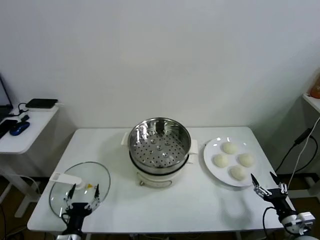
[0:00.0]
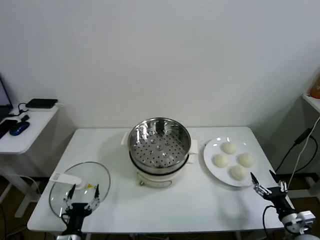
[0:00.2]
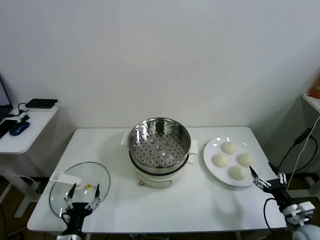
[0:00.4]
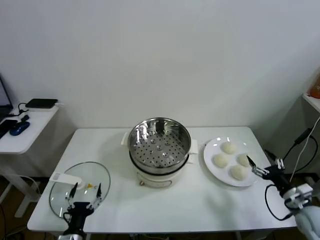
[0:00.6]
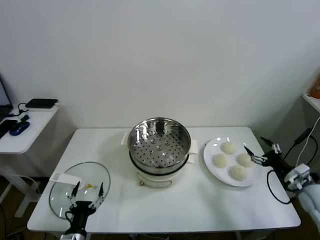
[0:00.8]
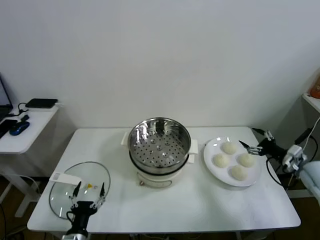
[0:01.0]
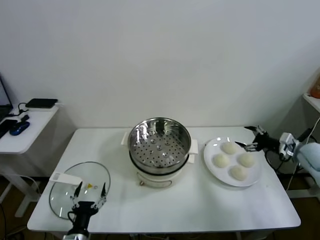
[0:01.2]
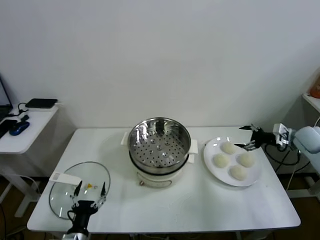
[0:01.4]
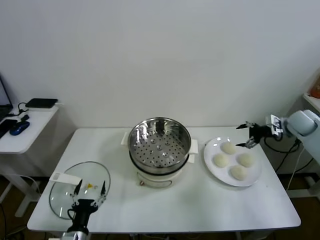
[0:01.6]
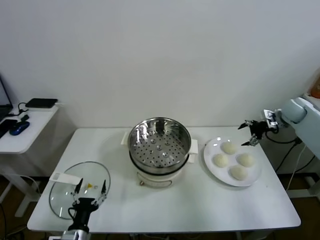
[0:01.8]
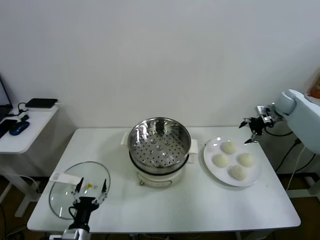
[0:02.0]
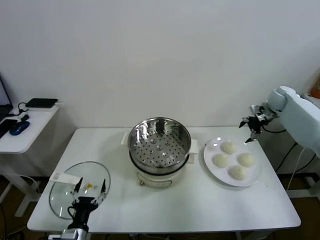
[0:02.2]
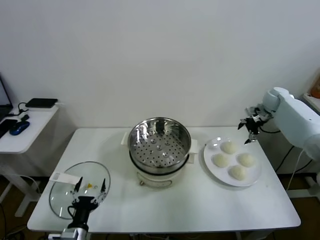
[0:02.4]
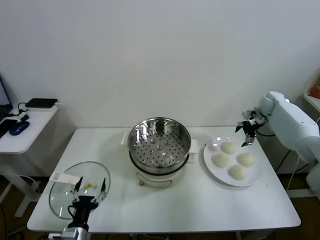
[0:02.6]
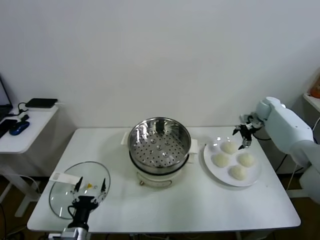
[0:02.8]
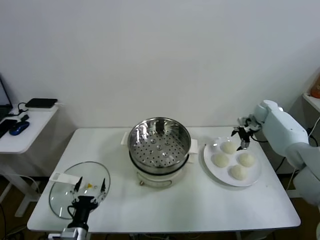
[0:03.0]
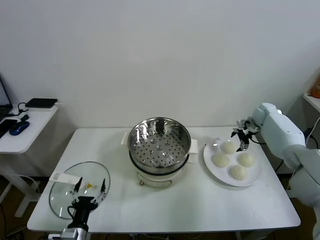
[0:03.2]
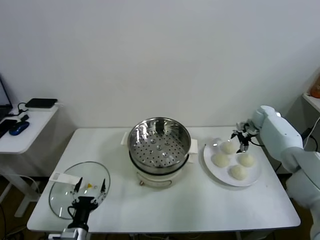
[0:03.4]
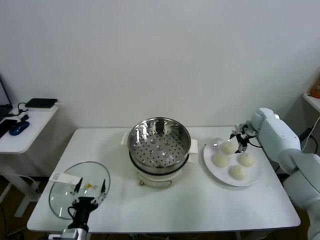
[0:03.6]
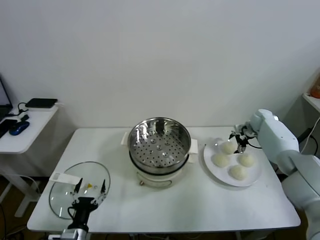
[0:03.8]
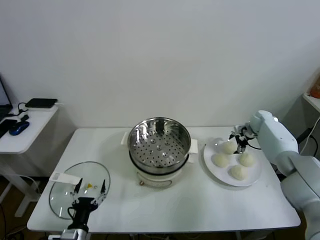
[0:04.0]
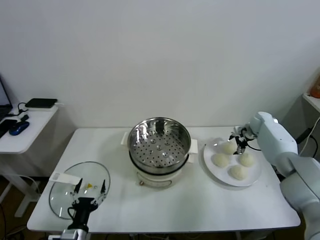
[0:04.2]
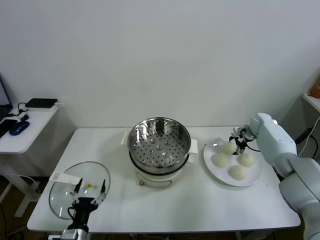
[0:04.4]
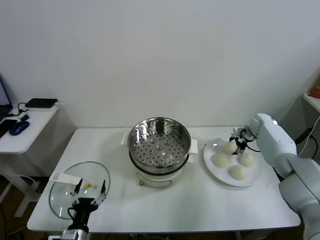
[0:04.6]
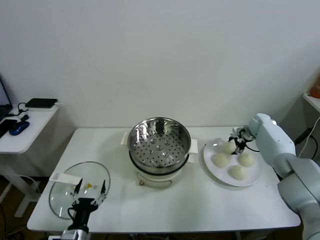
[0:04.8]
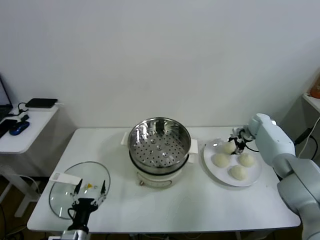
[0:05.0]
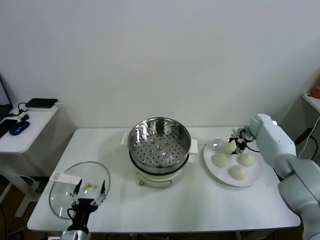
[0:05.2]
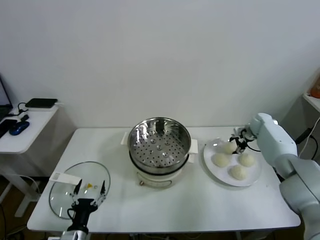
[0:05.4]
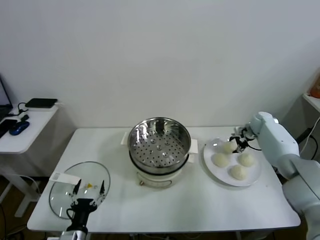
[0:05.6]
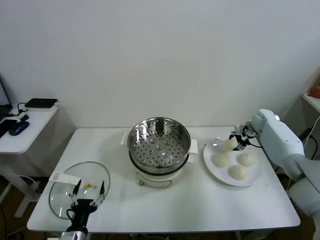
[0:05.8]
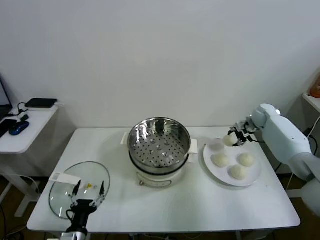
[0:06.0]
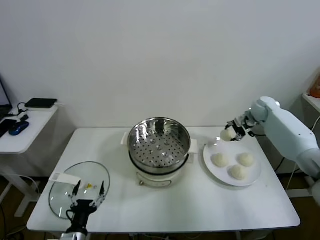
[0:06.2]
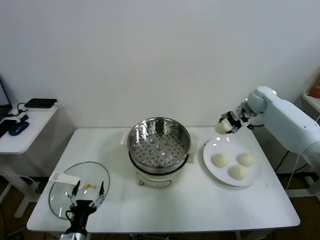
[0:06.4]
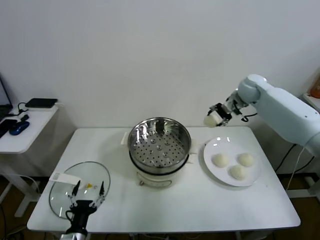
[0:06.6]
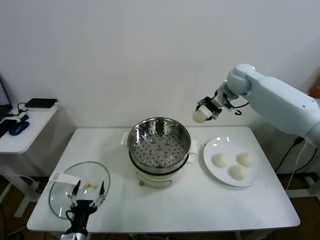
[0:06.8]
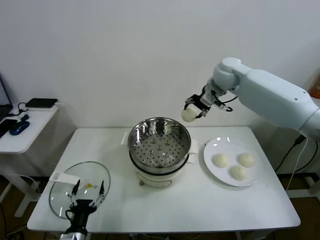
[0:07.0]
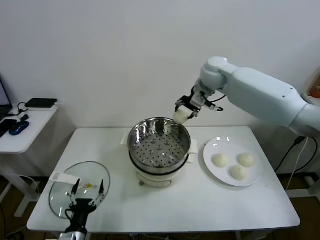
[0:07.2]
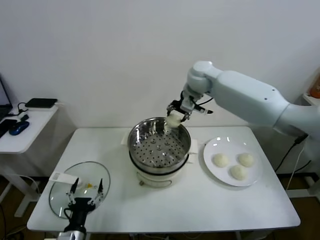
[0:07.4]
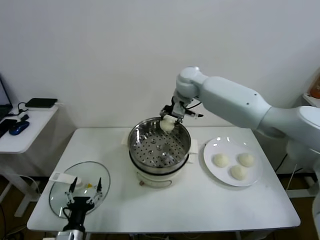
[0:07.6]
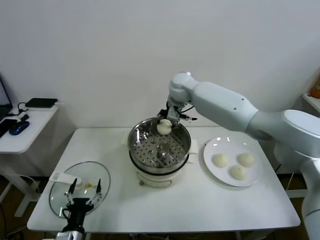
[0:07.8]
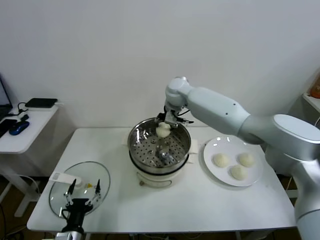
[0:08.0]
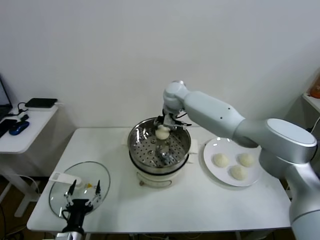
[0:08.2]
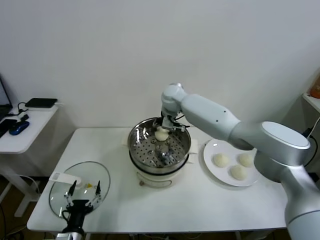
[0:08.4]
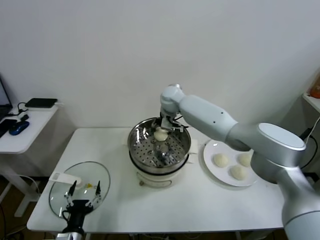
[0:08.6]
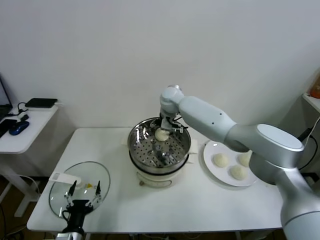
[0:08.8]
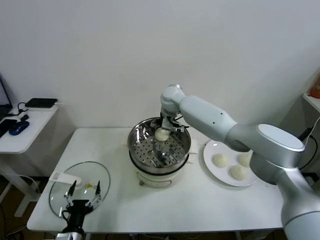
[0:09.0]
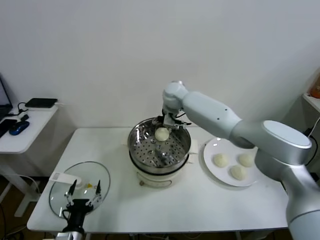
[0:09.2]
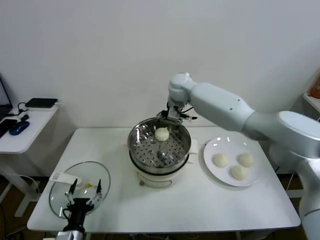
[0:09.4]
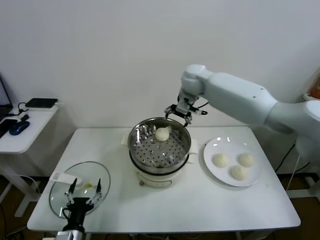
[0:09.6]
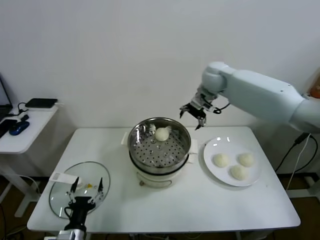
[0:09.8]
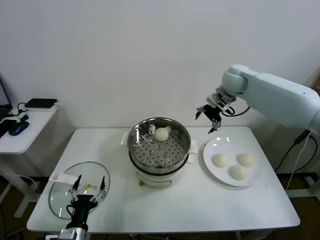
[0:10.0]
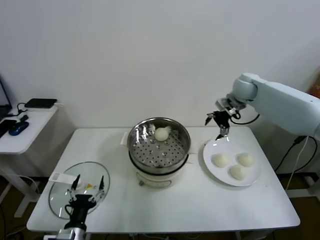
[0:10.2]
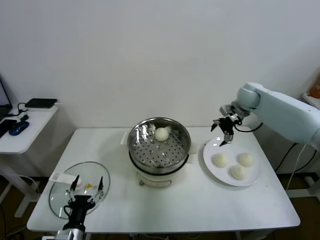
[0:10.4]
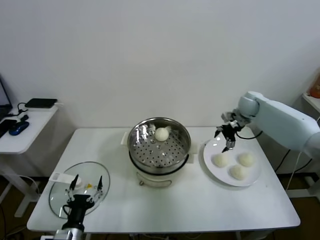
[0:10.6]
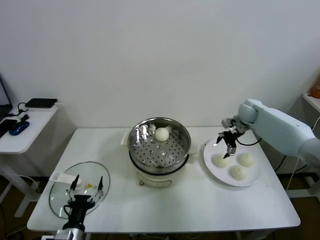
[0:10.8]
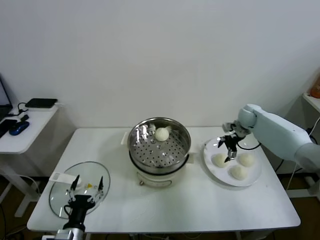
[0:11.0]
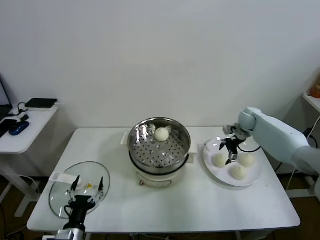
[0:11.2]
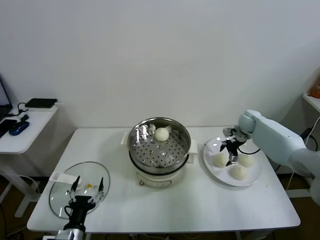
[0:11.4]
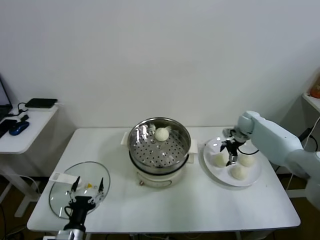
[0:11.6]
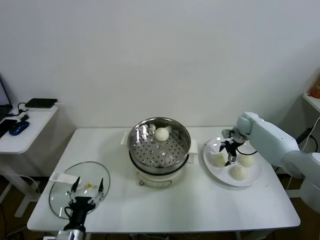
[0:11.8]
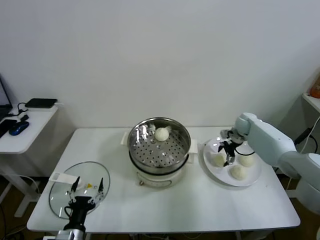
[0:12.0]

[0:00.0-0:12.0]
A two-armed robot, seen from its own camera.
Task of the whole recording: take steamed baozi put them in steamer.
Step, 0:00.0 to 0:05.2: Grasp the baozi in the plate with right gripper.
Step, 0:05.4 to 0:08.8: Place the baozi on the steamer with right gripper.
0:01.6 to 0:03.0: The right gripper moves forward, downward and to the left, approximately 10 cm.
0:03.0 to 0:04.4: The right gripper heads downward, covering roughly 5 cm, and closes up.
0:04.4 to 0:06.0: The right gripper moves upward, roughly 5 cm, and closes up.
0:06.0 to 0:07.6: The right gripper is displaced to the left and upward by roughly 35 cm.
0:07.6 to 0:09.0: The right gripper moves downward, roughly 5 cm, and opens.
0:09.0 to 0:10.4: The right gripper heads to the right, covering roughly 30 cm.
0:10.4 to 0:12.0: The right gripper heads downward, covering approximately 15 cm.

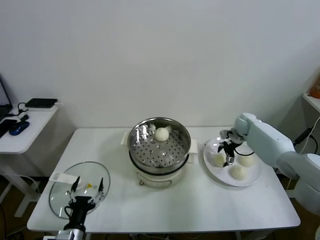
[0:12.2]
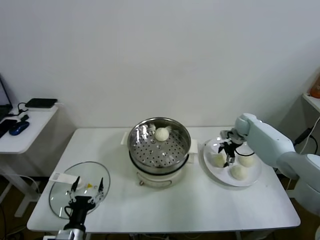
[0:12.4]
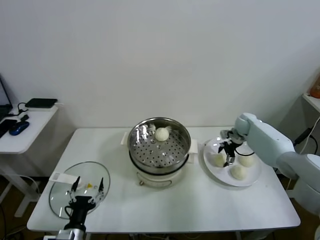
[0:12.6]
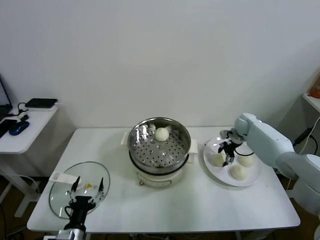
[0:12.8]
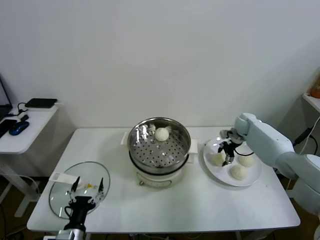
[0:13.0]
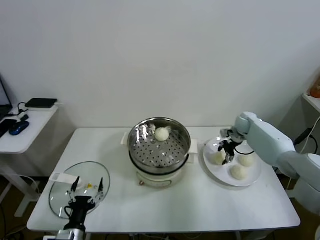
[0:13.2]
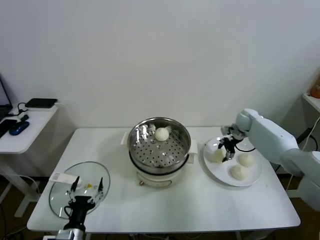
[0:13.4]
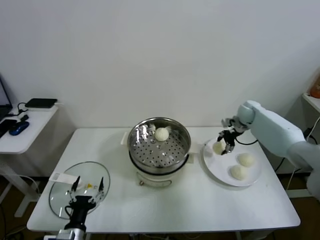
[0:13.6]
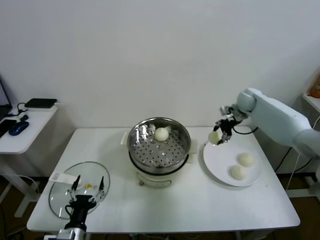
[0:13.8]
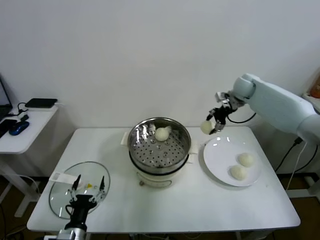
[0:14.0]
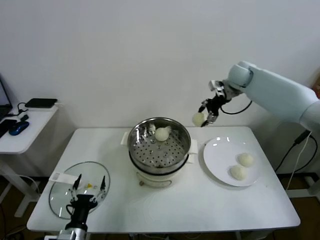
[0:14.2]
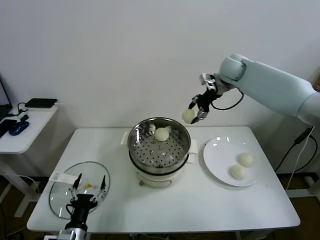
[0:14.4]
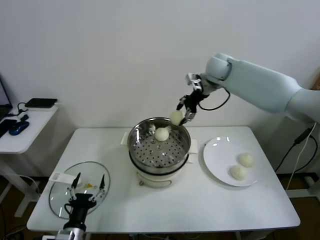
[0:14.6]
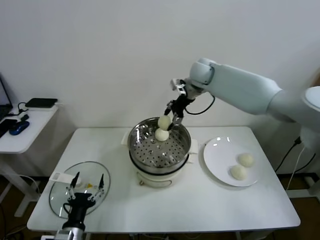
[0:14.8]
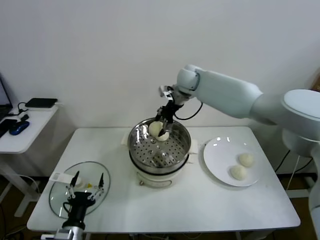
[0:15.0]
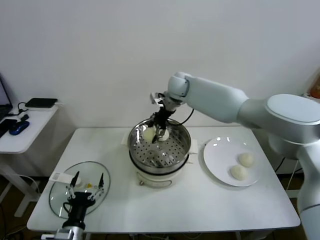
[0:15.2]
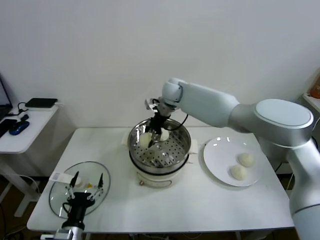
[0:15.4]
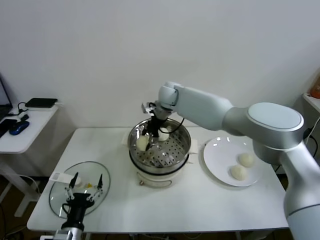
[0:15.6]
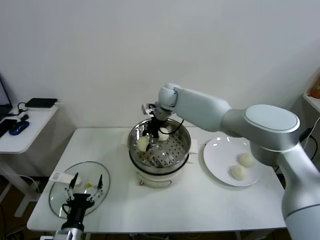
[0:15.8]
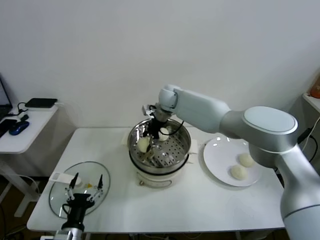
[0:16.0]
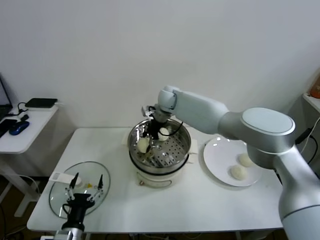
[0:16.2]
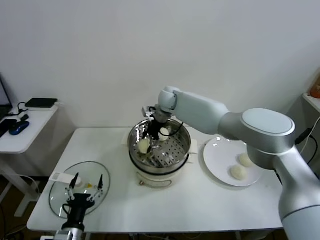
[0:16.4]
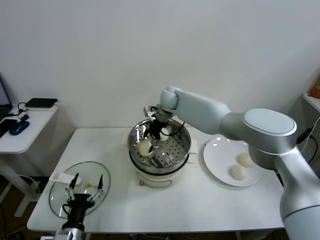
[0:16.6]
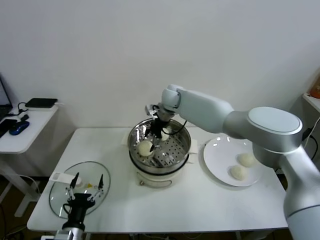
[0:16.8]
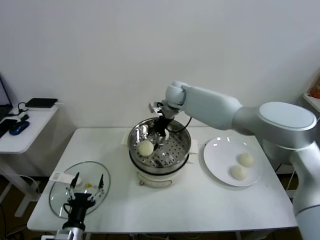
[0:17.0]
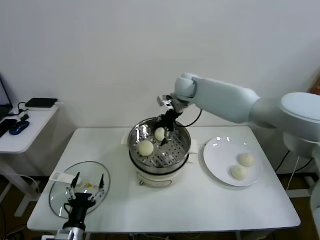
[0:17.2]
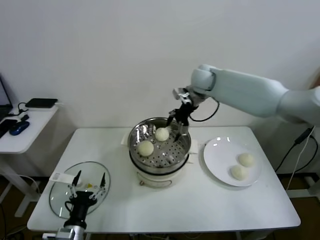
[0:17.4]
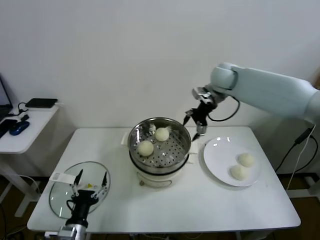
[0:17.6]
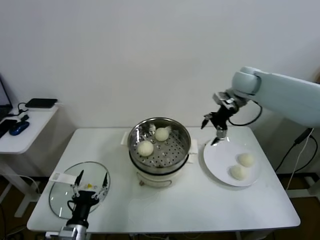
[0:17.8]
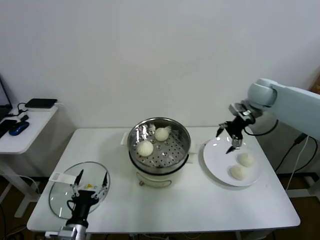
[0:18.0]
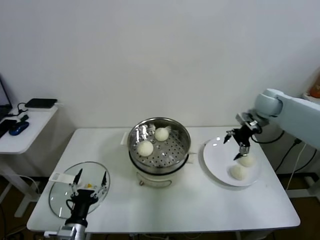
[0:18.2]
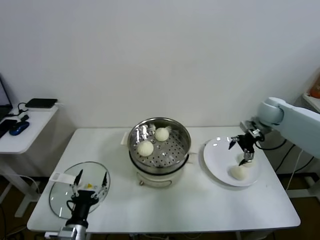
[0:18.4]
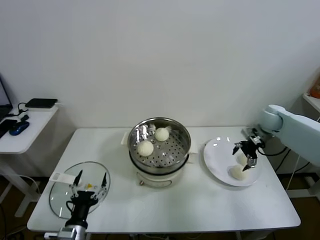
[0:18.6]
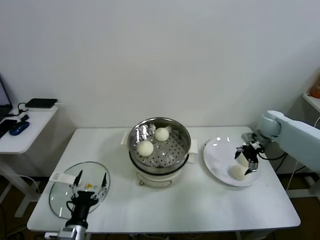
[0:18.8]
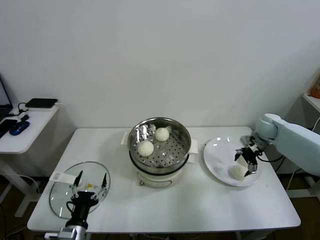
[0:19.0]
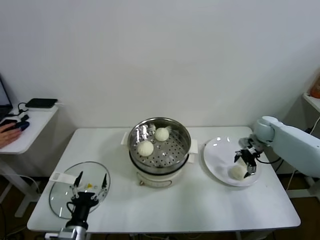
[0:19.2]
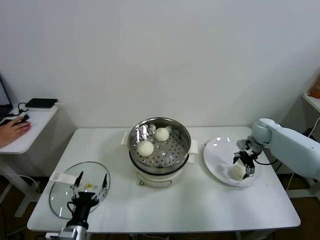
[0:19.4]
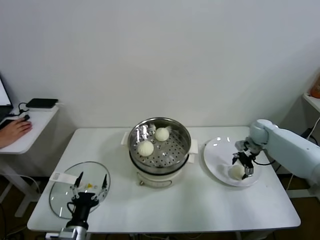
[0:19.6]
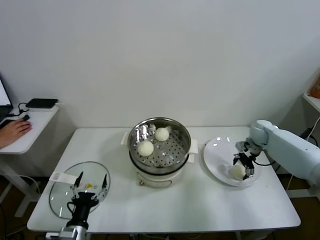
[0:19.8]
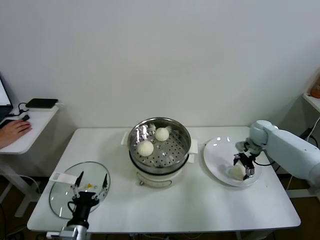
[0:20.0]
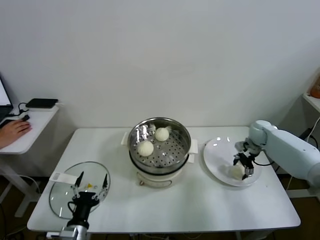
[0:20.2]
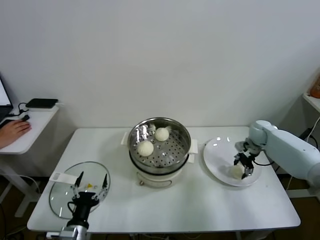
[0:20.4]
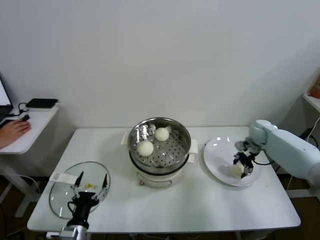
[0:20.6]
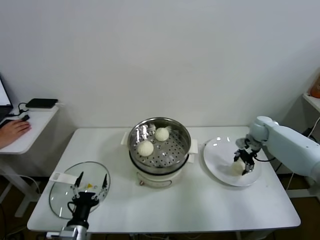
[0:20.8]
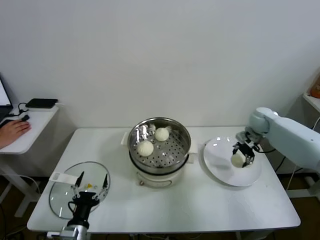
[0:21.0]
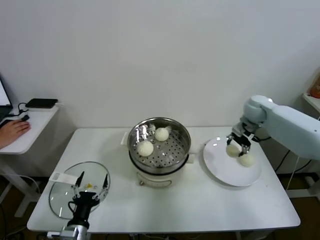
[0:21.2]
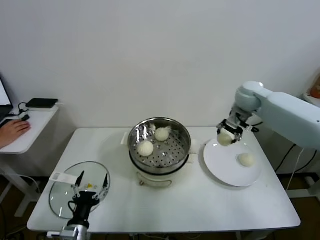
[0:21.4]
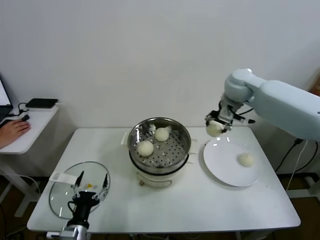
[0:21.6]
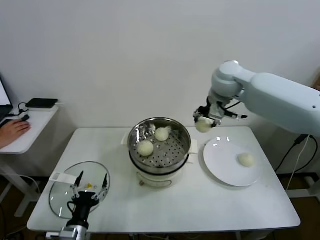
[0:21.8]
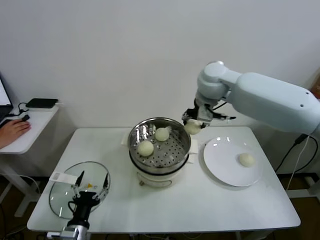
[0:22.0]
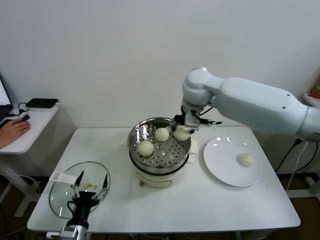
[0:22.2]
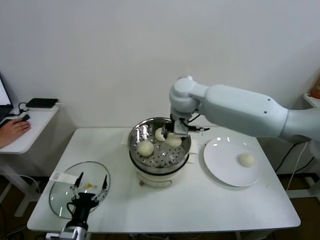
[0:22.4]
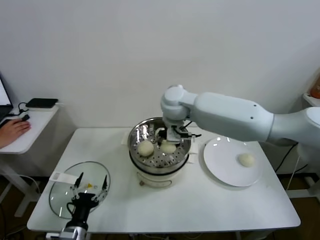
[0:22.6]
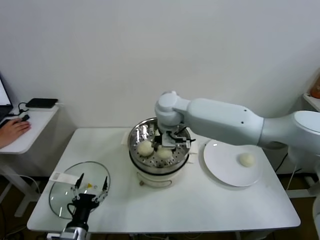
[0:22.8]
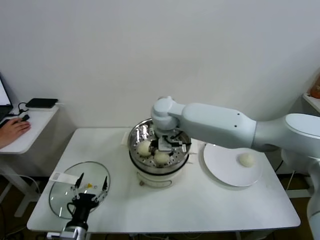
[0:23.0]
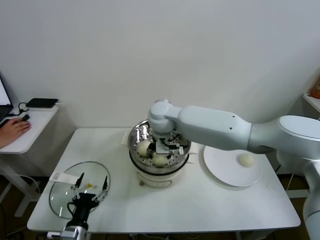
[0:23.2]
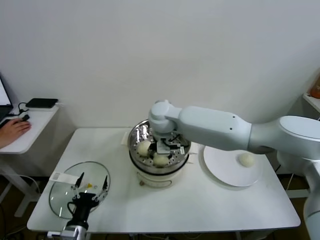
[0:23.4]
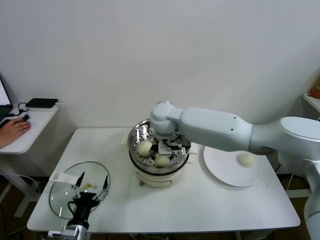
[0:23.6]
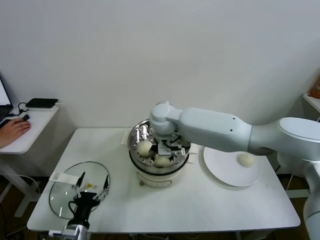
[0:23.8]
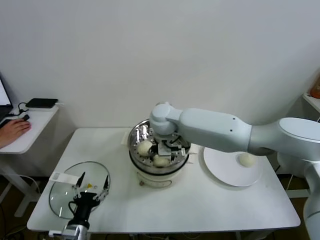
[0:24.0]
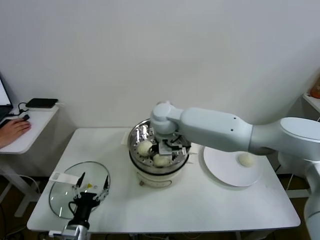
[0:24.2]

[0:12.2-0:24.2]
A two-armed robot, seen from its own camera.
Task of the whole recording: take steamed baozi put them in steamer.
Step, 0:13.2 to 0:16.6: Place the baozi on the steamer with right gripper.
Step, 0:16.8 to 0:20.4: Grasp the baozi in the plate with right gripper.
0:12.2 to 0:13.8: The right gripper heads upward, covering roughly 15 cm, and closes its fingers.
0:13.8 to 0:15.2: The right gripper moves to the left, about 30 cm.
0:15.2 to 0:16.6: The right gripper heads downward, covering about 5 cm, and opens up.
0:16.6 to 0:18.2: The right gripper travels to the right by approximately 35 cm.
0:18.2 to 0:19.8: The right gripper goes some 15 cm downward.
0:19.8 to 0:21.2: The right gripper shifts roughly 15 cm upward and to the left, and closes.
0:21.2 to 0:22.6: The right gripper travels to the left by some 30 cm.
0:22.6 to 0:24.2: The right gripper goes some 5 cm downward, and opens.
